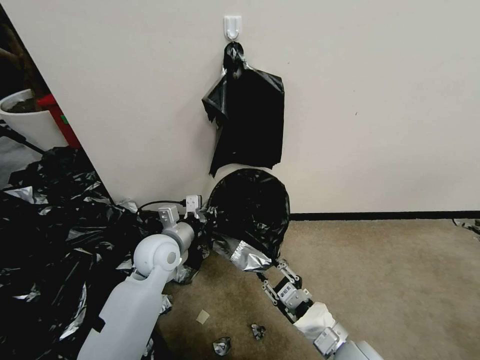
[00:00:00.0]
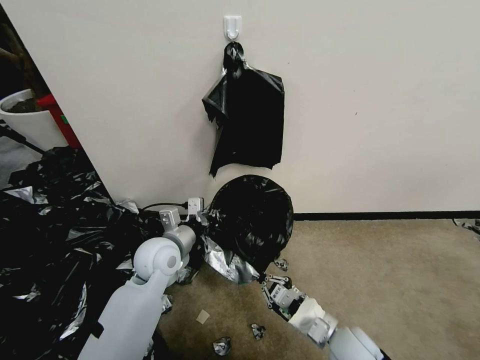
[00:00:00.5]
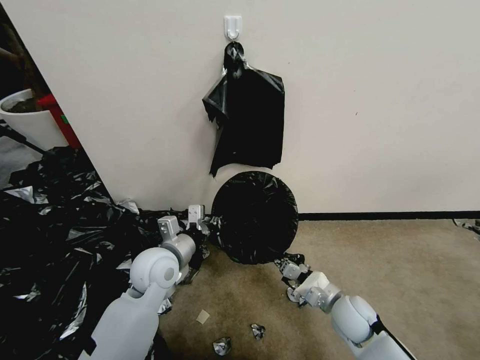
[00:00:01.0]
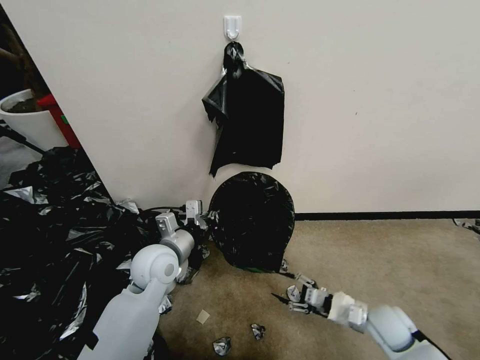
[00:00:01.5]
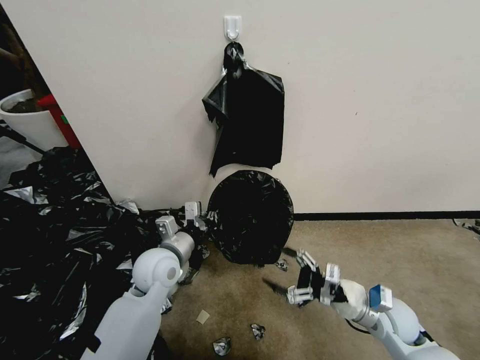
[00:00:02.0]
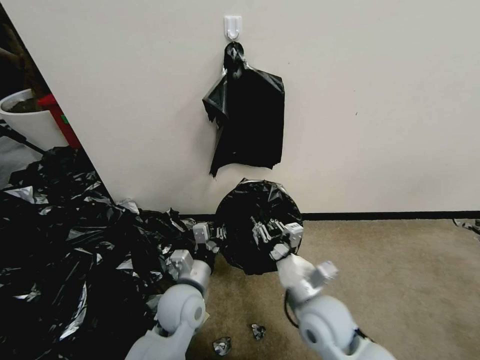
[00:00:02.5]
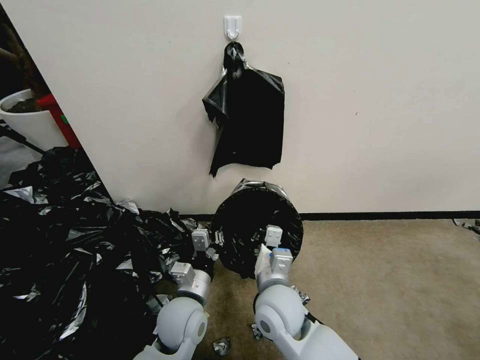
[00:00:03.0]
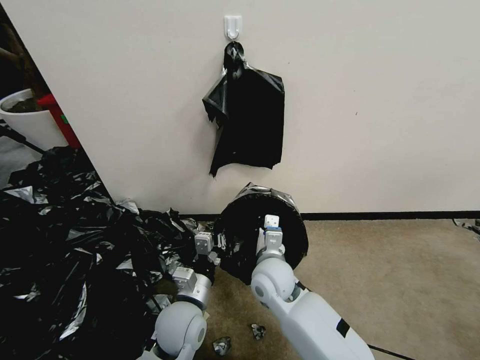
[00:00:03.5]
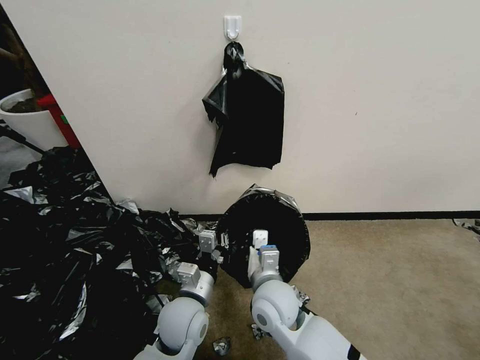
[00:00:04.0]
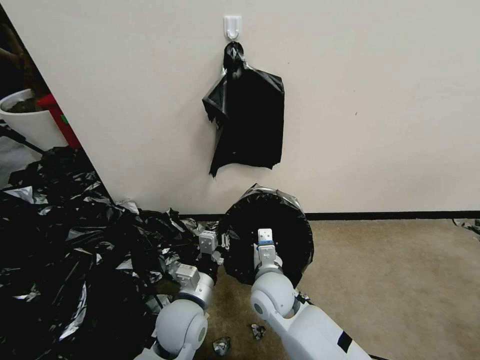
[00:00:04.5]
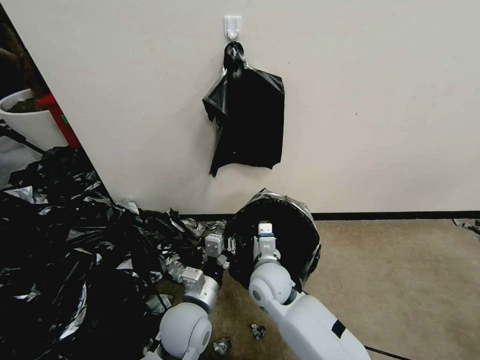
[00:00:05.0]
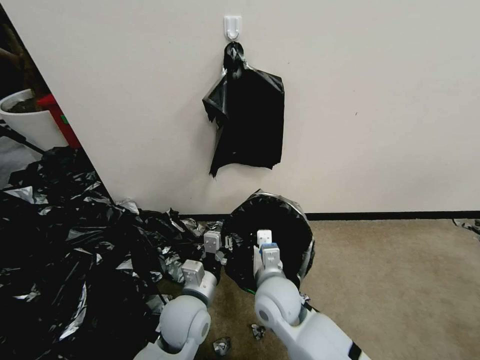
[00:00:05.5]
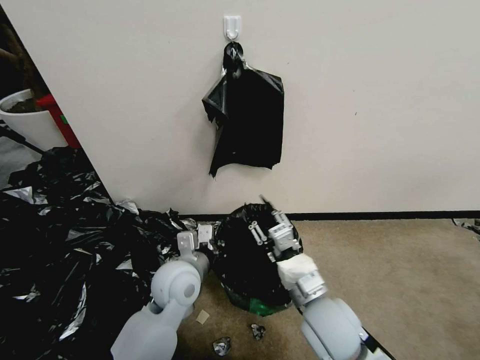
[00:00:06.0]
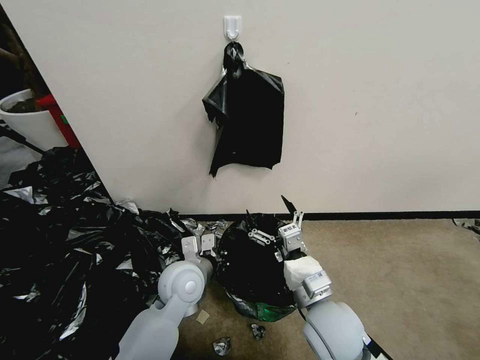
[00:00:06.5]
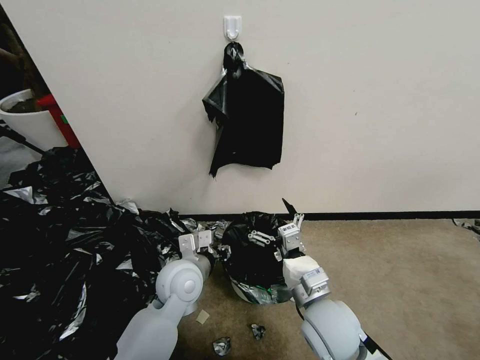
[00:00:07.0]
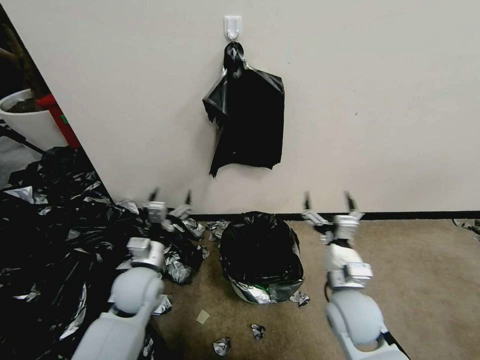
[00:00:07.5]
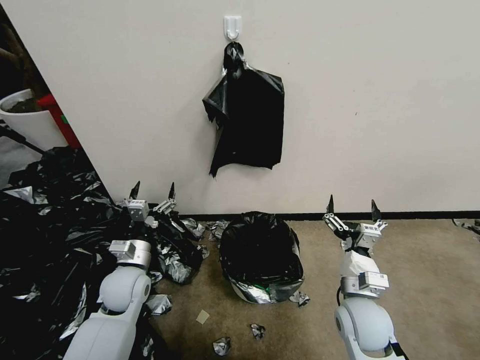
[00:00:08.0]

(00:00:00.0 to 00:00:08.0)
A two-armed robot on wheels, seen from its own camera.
Task of the whole recording: Place a trash bag onto the trash bin.
00:00:00.0 - 00:00:02.0: The right gripper shifts approximately 15 cm to the right and forward, and opens.
00:00:02.0 - 00:00:04.0: The right gripper is displaced to the left by about 25 cm, and closes its fingers, while the left gripper shifts some 10 cm backward, to the right and downward.
00:00:04.0 - 00:00:06.0: The right gripper is displaced to the right by about 10 cm, and opens its fingers. Meanwhile the left gripper goes about 10 cm upward and forward.
00:00:06.0 - 00:00:08.0: The right gripper is displaced to the right and downward by roughly 10 cm, and opens up. The left gripper moves to the left and downward, roughly 15 cm, and opens up.
